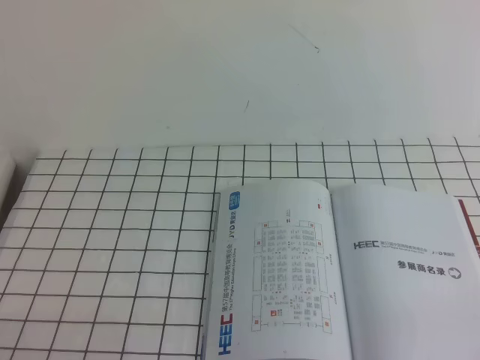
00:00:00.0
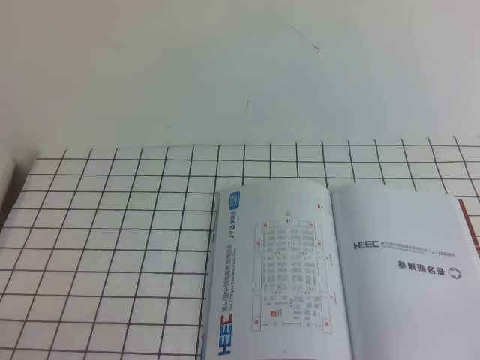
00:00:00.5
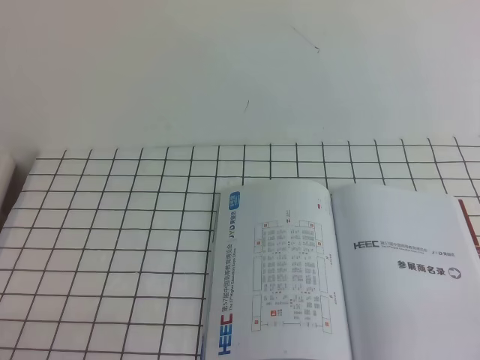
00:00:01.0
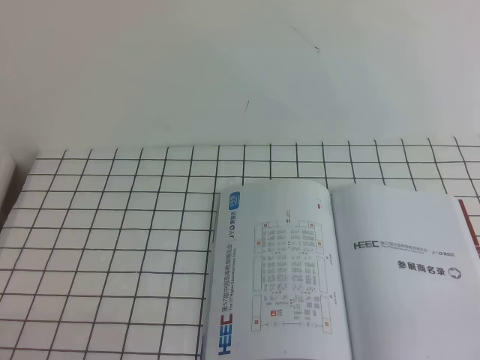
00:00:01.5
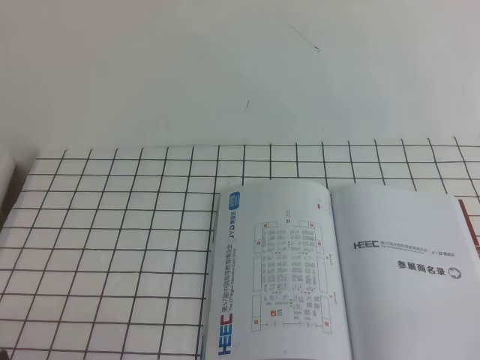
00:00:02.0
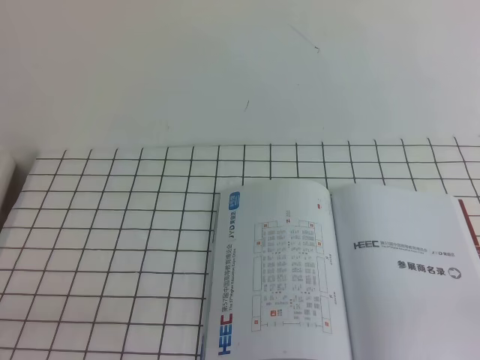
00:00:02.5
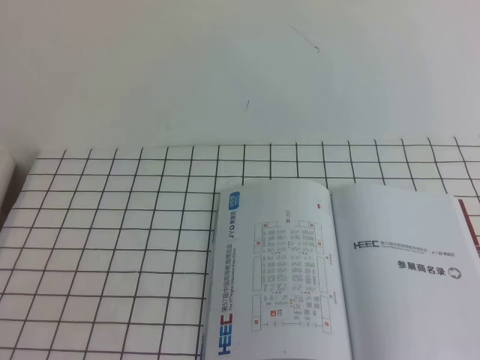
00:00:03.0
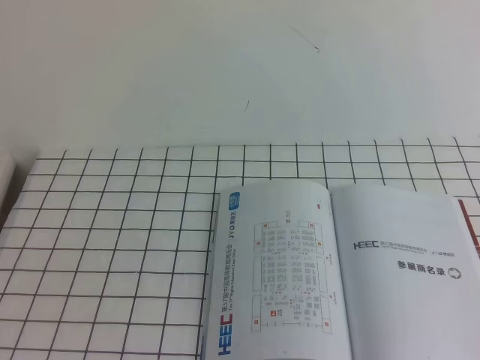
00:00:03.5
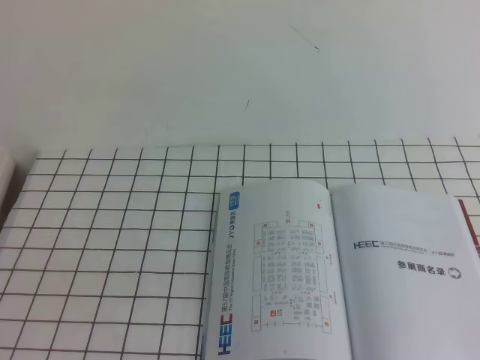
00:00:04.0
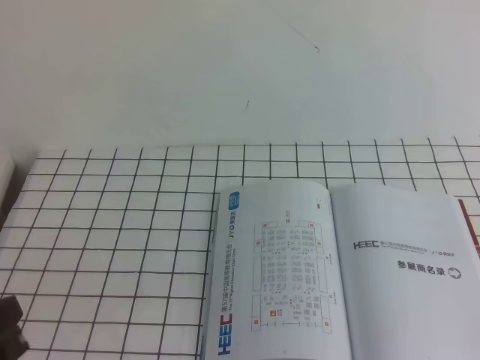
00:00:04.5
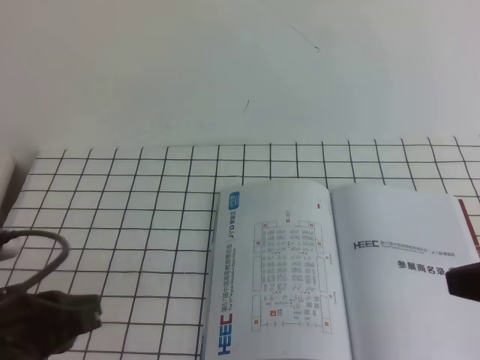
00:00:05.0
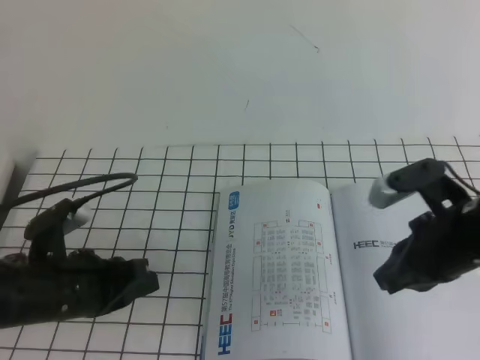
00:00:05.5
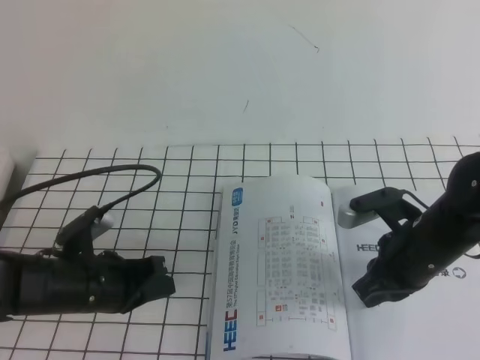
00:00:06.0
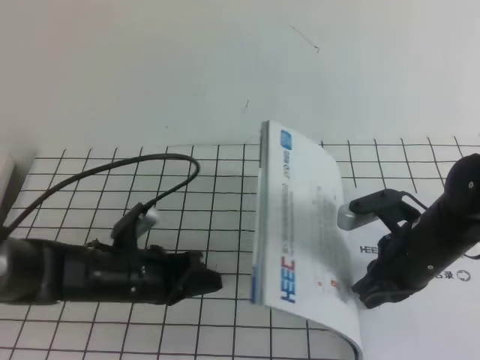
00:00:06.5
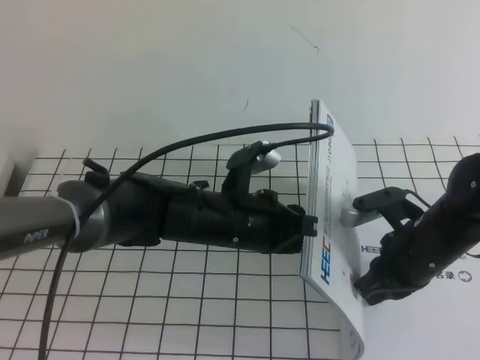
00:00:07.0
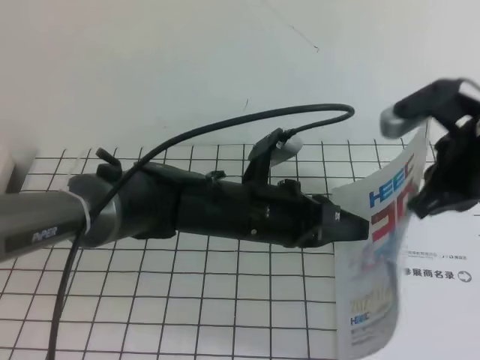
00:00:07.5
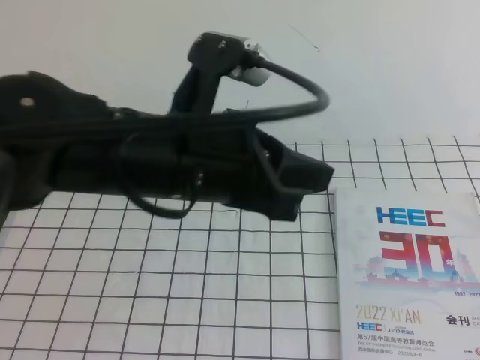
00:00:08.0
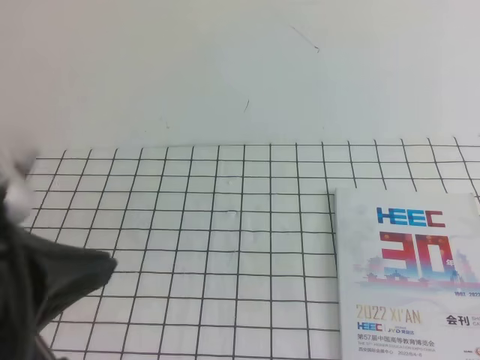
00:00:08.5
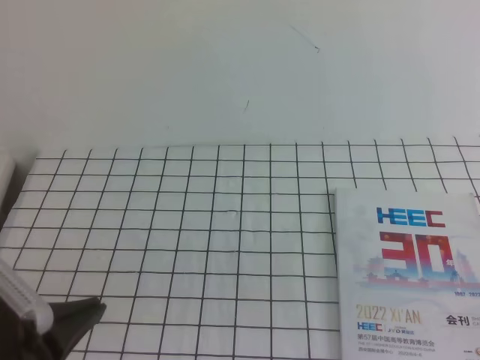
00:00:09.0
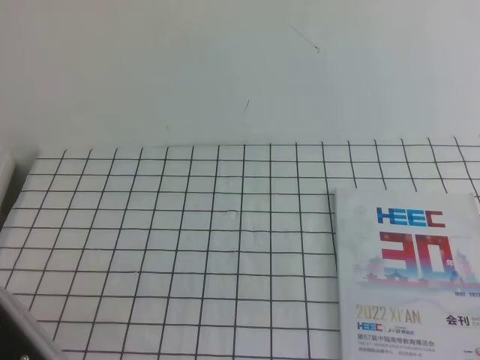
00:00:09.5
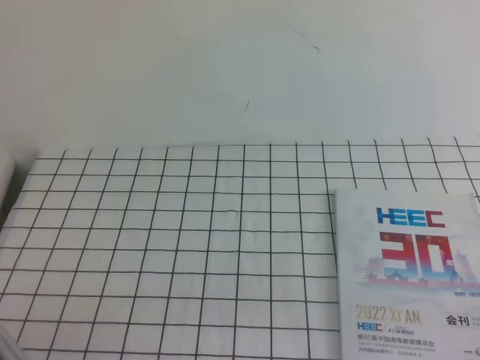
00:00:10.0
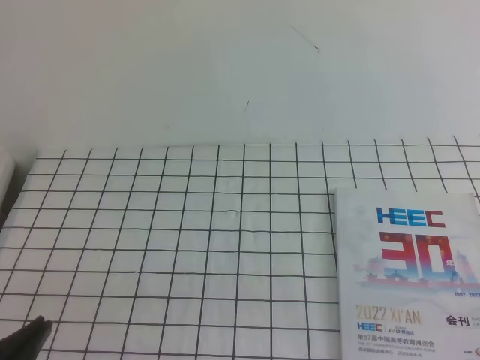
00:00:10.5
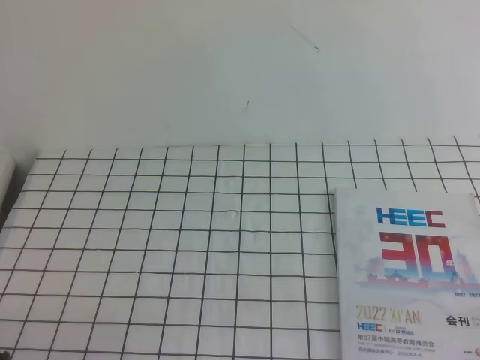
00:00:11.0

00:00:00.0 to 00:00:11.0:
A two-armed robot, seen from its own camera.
Task of the whole recording: on the white tablecloth, hold the book with one hand and close it with the other.
00:00:03.5 to 00:00:05.5: The left gripper heads forward and downward, covering about 35 cm; the right gripper goes about 35 cm forward, downward and to the left.
00:00:05.5 to 00:00:07.5: The right gripper moves upward, some 5 cm; the left gripper is displaced to the right and forward by about 20 cm.
00:00:07.5 to 00:00:09.0: The right gripper is displaced backward and to the right by some 25 cm. Meanwhile the left gripper is displaced backward and to the left by some 25 cm.
00:00:09.0 to 00:00:11.0: The left gripper shifts some 10 cm downward and to the left.

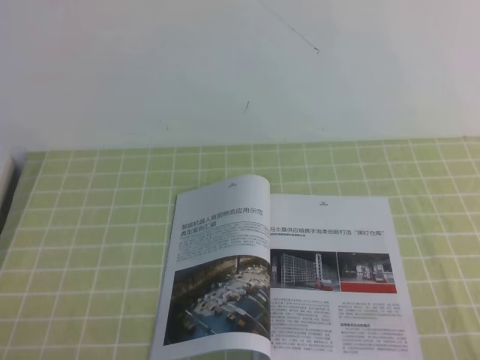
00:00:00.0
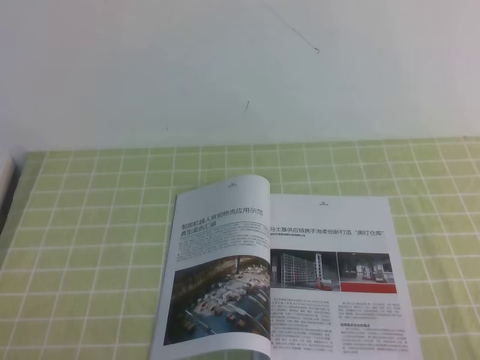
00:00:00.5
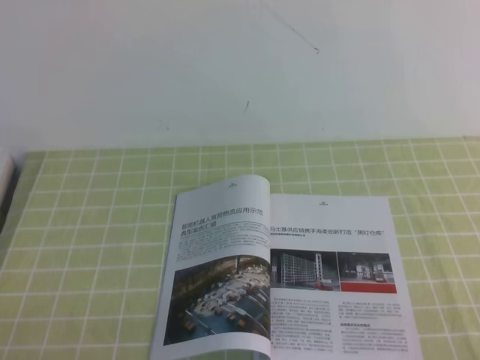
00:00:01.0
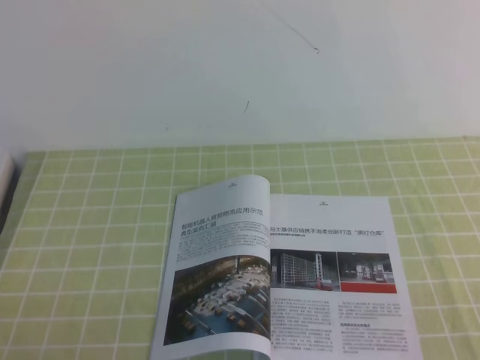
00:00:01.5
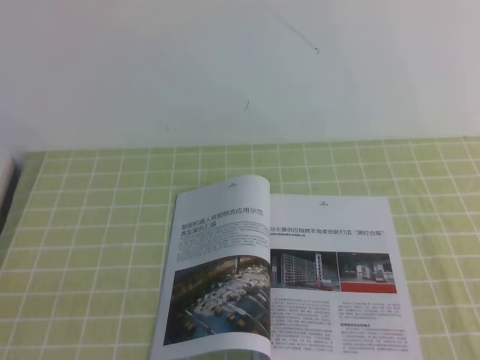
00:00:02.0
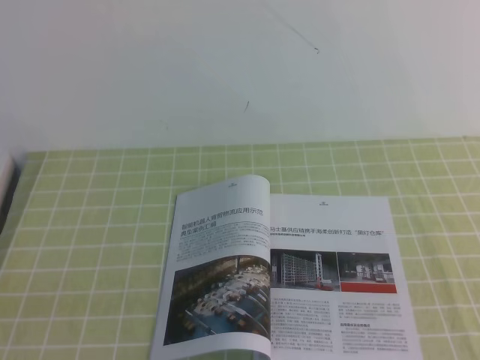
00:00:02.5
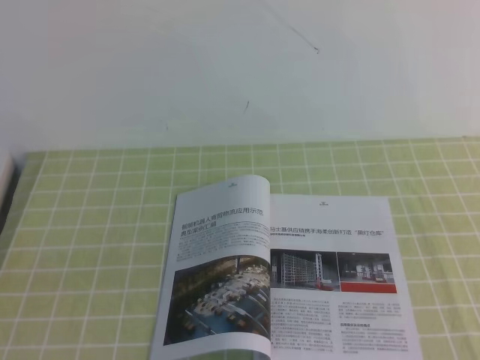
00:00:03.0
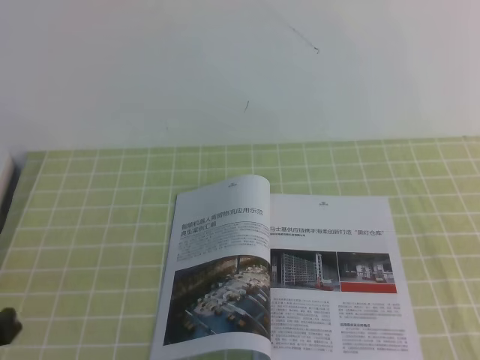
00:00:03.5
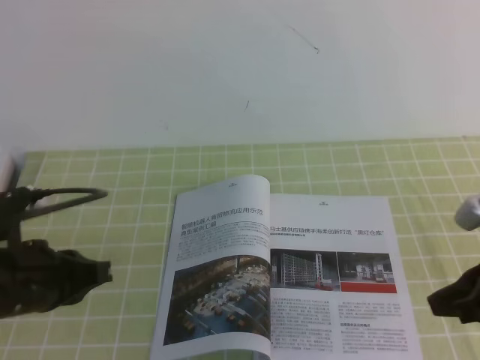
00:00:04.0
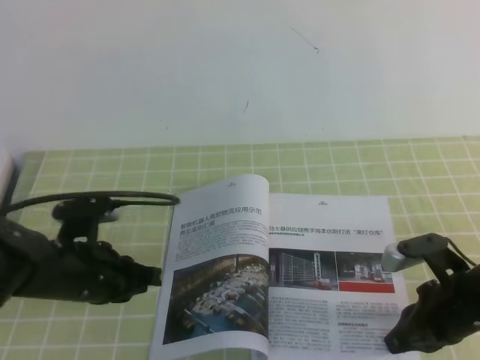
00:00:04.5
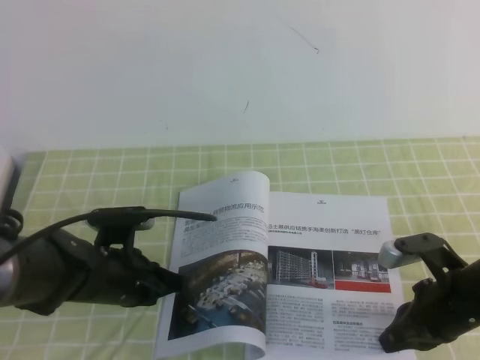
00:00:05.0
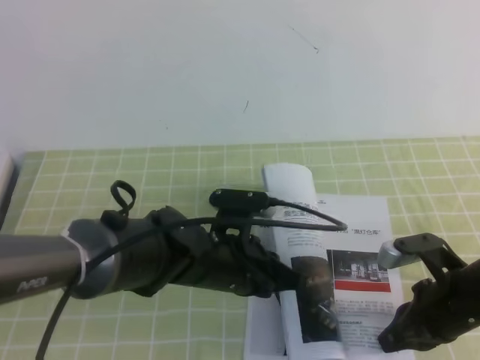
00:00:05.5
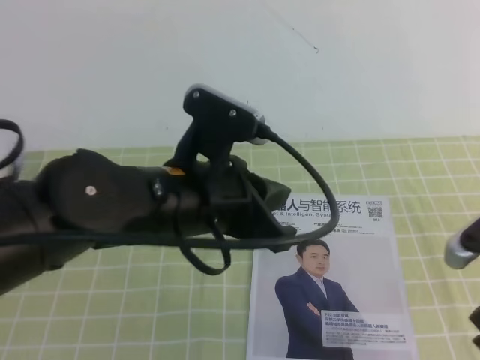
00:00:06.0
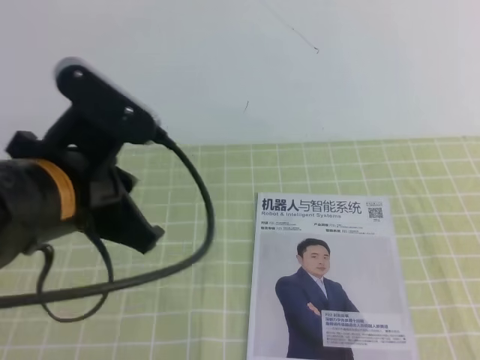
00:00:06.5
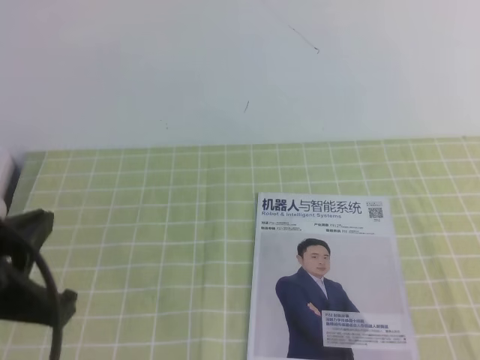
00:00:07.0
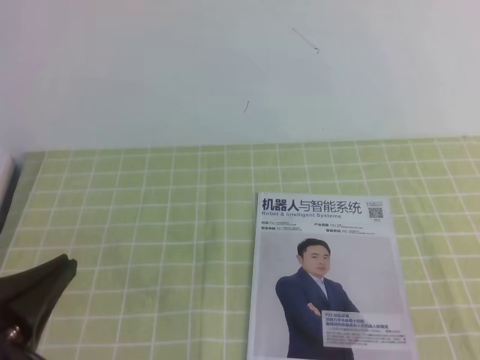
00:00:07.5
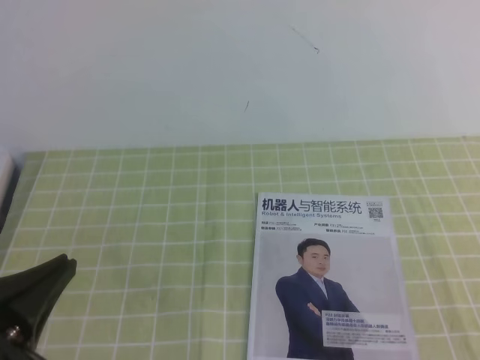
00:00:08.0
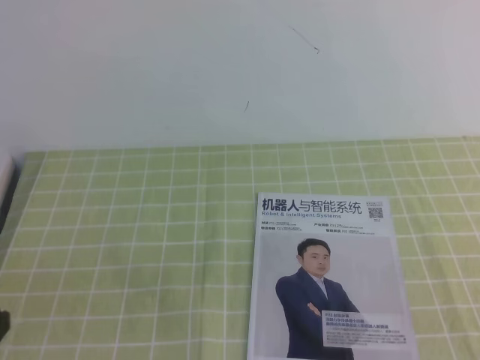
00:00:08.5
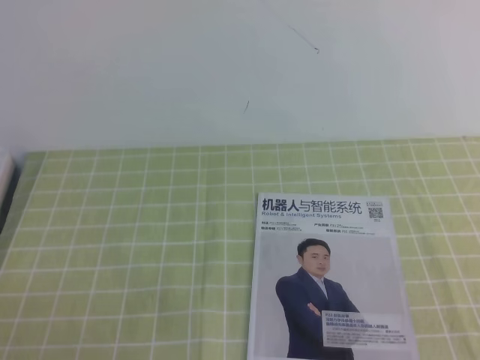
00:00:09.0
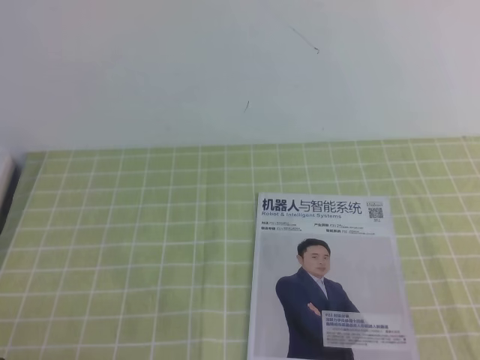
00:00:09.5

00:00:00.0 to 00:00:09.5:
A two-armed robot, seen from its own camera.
Task of the whole recording: on the green tablecloth, hold the book with one hand and close it with the other.
00:00:02.0 to 00:00:04.0: Both grippers travel together forward, some 20 cm.
00:00:04.0 to 00:00:05.5: The right gripper heads downward, covering some 10 cm. Meanwhile the left gripper heads to the right, covering roughly 20 cm.
00:00:05.5 to 00:00:07.5: The left gripper travels backward, to the left and upward by about 25 cm, while the right gripper is displaced backward, upward and to the right by about 30 cm.
00:00:07.5 to 00:00:09.5: The left gripper is displaced downward and to the left by about 10 cm.
